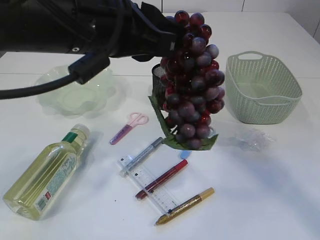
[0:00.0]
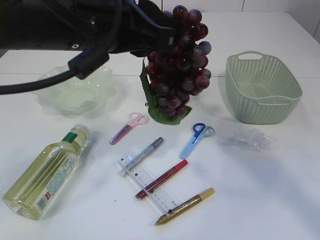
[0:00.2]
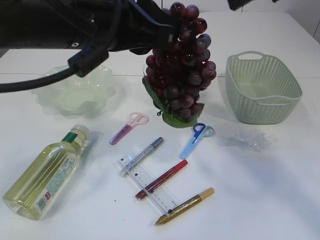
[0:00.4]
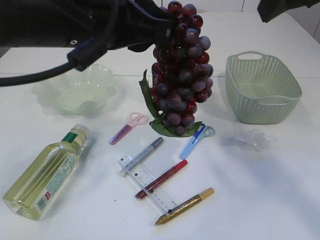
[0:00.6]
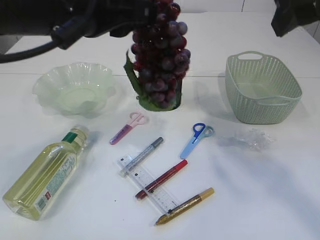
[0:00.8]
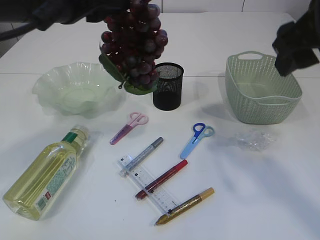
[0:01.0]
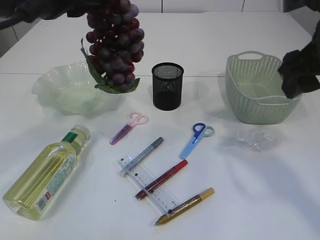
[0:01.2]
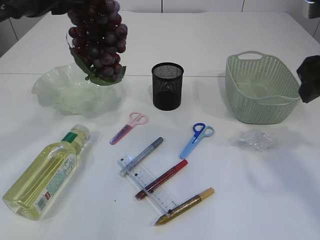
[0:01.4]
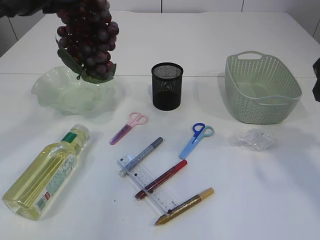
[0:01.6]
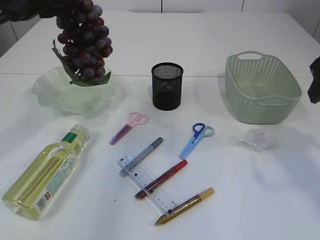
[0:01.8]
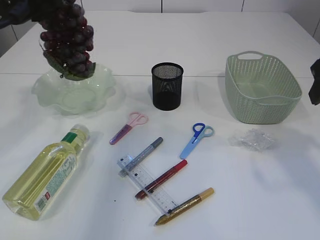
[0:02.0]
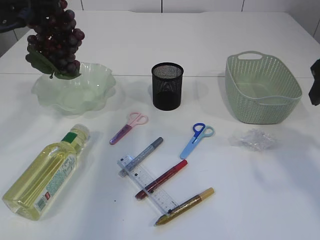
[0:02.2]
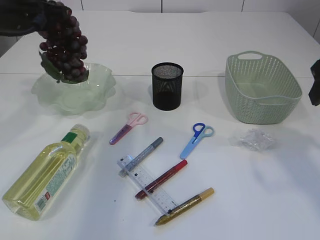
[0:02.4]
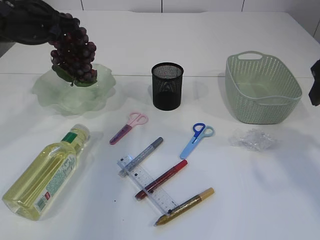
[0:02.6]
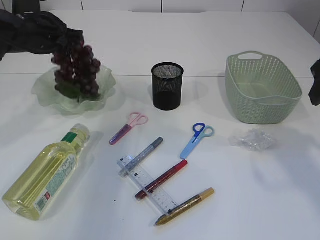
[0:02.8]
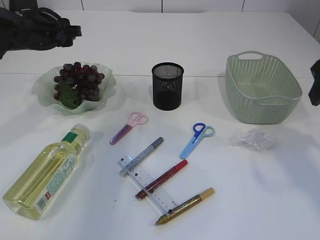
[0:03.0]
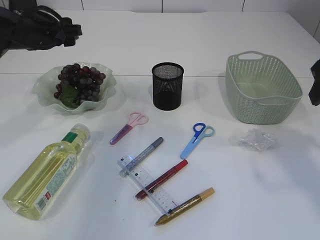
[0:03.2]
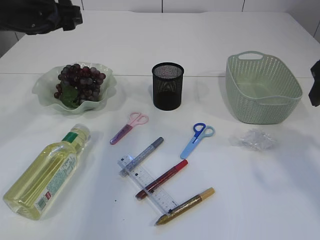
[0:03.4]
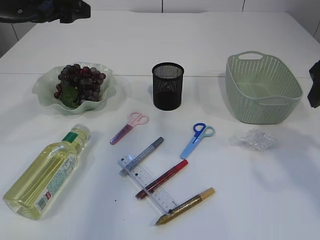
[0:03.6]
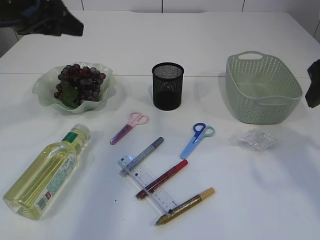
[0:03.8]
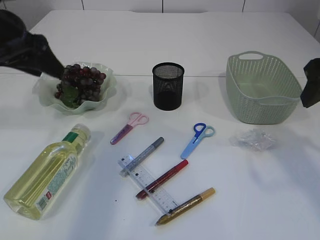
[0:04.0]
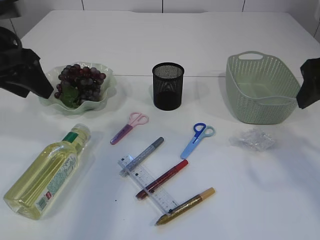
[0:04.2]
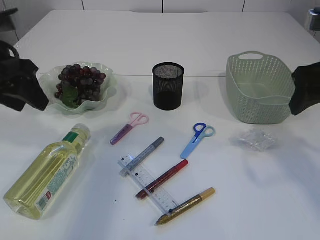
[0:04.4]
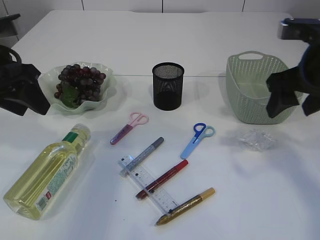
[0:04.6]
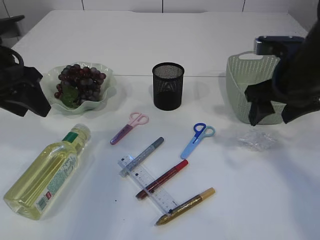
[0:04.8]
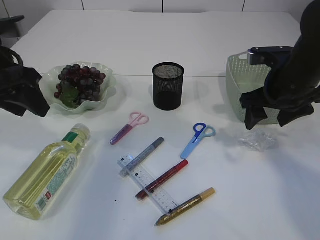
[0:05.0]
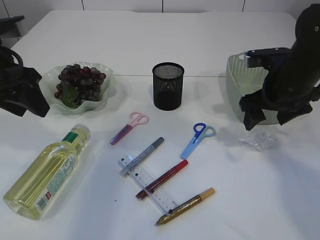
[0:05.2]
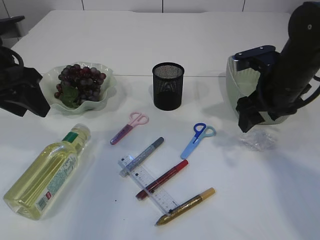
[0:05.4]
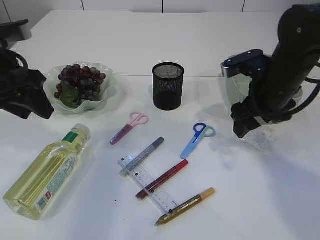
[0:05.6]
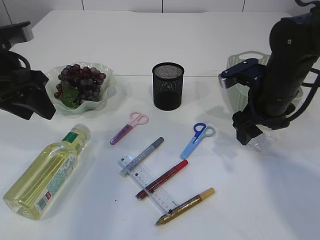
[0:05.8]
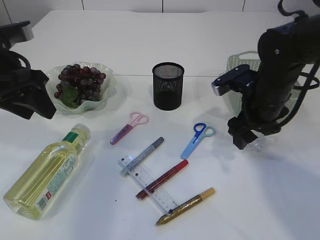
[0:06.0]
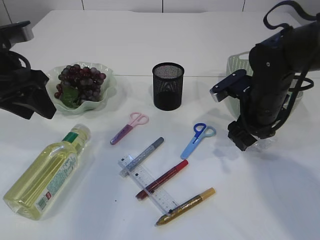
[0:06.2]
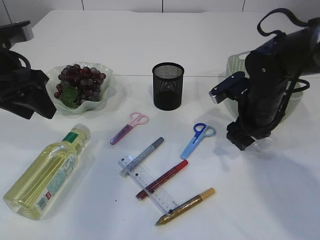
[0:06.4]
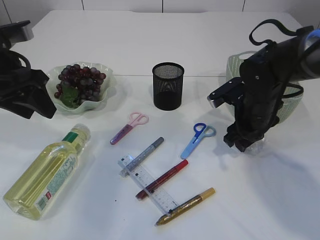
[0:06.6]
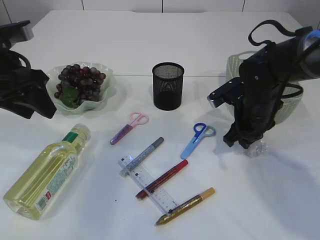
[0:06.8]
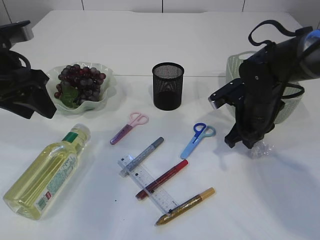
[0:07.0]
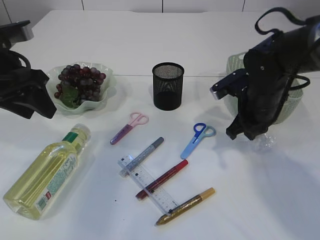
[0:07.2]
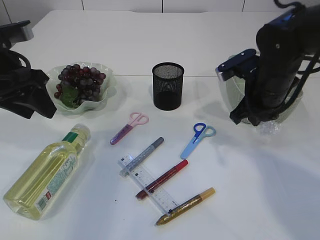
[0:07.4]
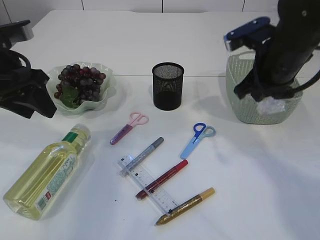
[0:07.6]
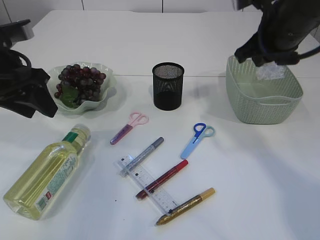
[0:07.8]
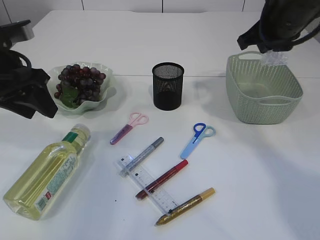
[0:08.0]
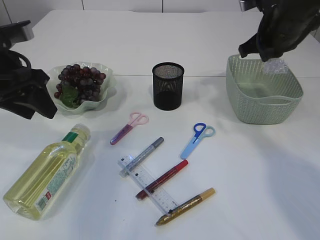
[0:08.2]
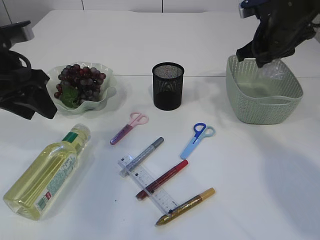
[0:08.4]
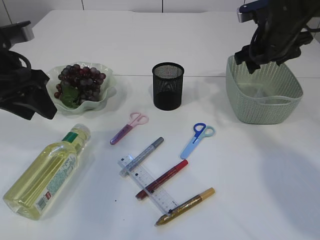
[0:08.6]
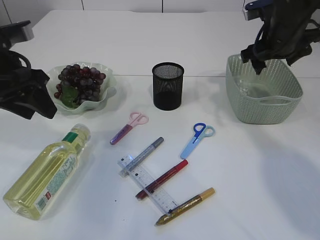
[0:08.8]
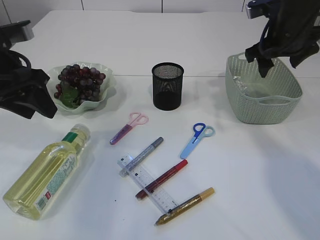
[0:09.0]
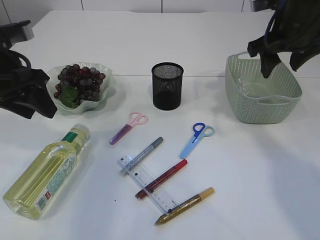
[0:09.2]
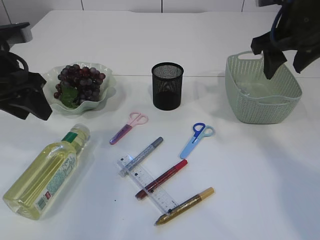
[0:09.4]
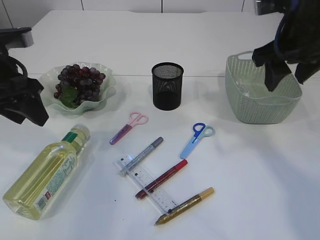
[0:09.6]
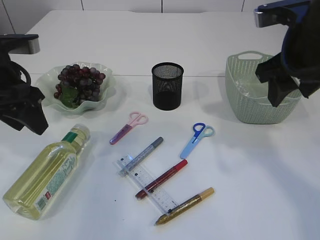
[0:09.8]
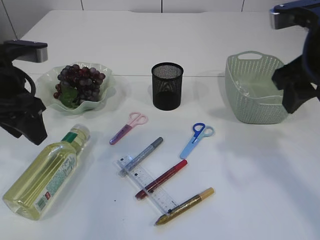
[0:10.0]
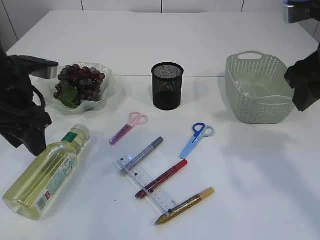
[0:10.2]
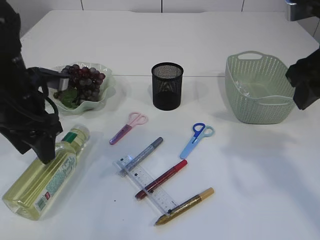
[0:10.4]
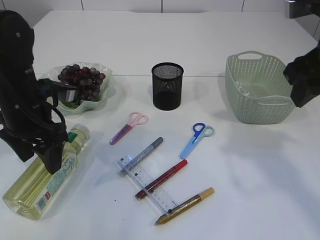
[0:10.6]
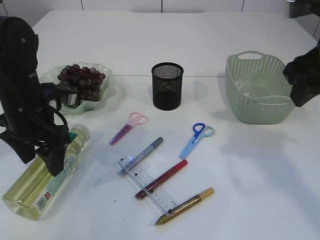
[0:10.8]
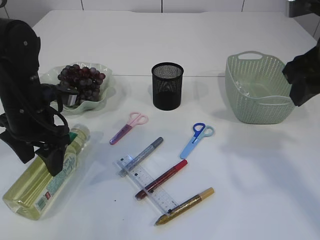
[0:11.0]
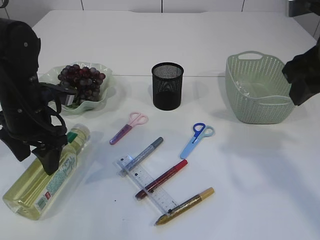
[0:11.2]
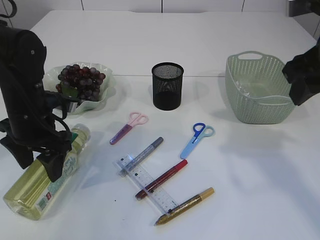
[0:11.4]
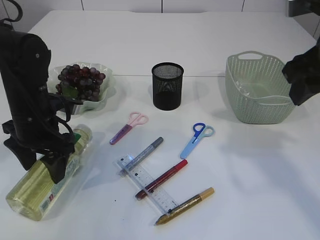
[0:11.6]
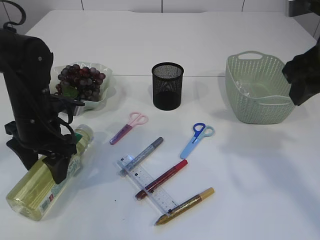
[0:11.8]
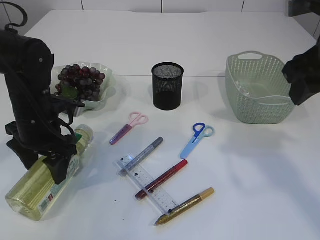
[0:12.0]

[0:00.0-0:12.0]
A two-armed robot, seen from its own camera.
Step, 0:00.8 to 0:02.8: Place the grapes in the plate.
Step, 0:03.0 to 0:07.4: Pick up the plastic.
Step, 0:07.6 to 0:09.8: Place the plastic in the basket.
0:00.0 to 0:01.6: The left gripper shifts about 15 cm to the left and forward. Meanwhile the right gripper goes some 20 cm to the right and downward.
0:01.6 to 0:03.0: The left gripper is displaced forward and downward by some 15 cm, and opens.
0:03.0 to 0:04.4: The left gripper heads backward, covering roughly 10 cm.
0:04.4 to 0:06.0: The right gripper heads downward, forward and to the left, covering about 15 cm.
0:06.0 to 0:07.6: The right gripper moves upward, roughly 10 cm, and closes up.
0:07.6 to 0:09.0: The right gripper moves forward, roughly 5 cm, and opens its fingers.
0:09.0 to 0:10.4: The left gripper is displaced downward by roughly 5 cm; the right gripper travels backward by about 15 cm.
0:10.4 to 0:12.0: The left gripper moves downward, roughly 5 cm.

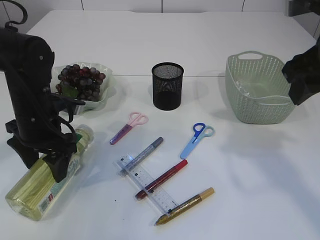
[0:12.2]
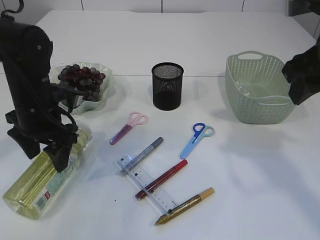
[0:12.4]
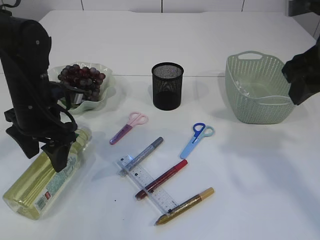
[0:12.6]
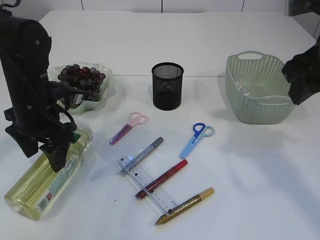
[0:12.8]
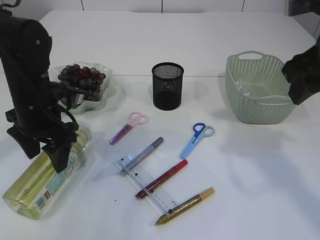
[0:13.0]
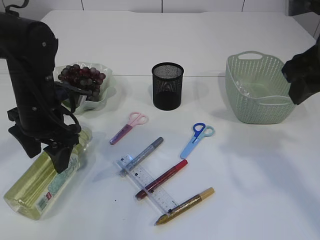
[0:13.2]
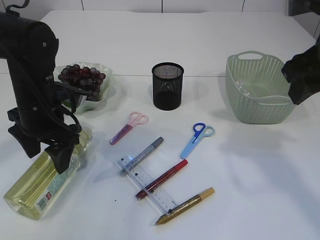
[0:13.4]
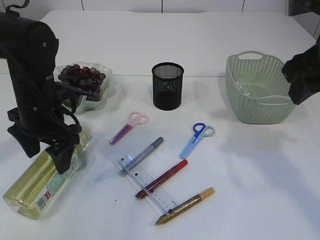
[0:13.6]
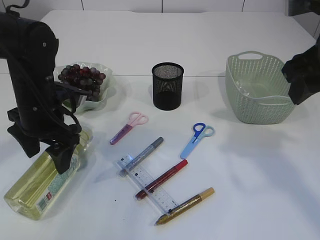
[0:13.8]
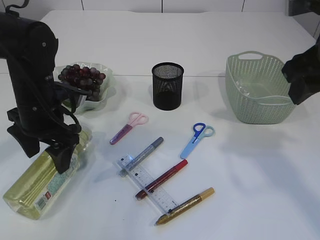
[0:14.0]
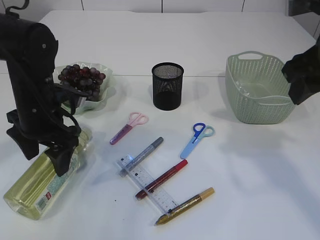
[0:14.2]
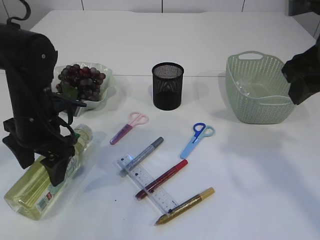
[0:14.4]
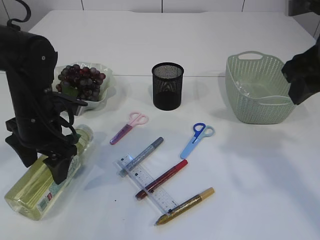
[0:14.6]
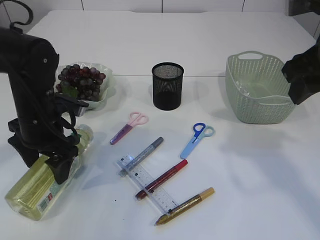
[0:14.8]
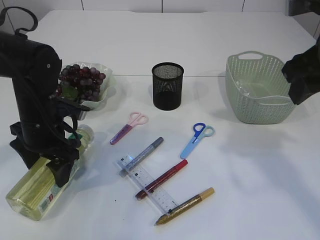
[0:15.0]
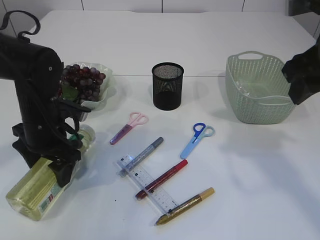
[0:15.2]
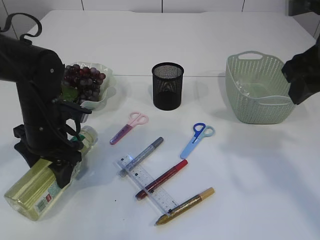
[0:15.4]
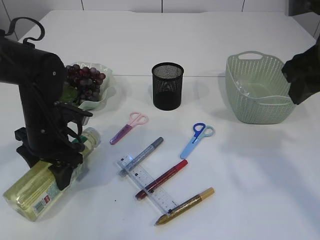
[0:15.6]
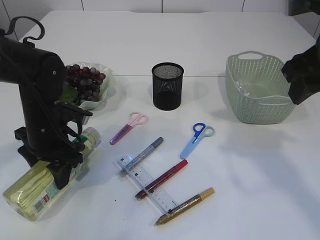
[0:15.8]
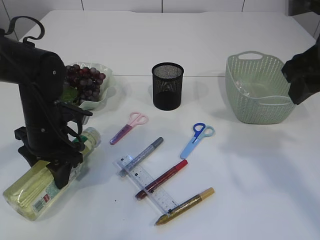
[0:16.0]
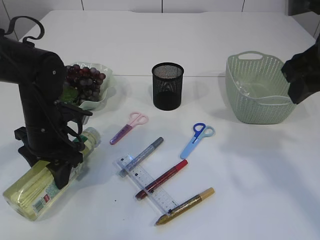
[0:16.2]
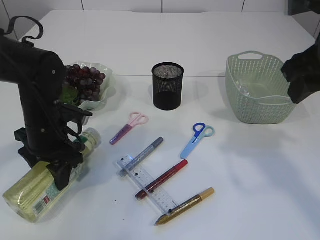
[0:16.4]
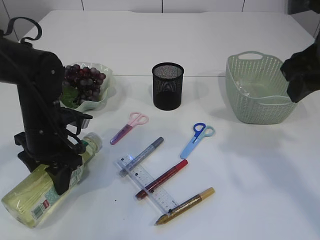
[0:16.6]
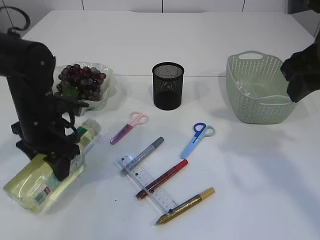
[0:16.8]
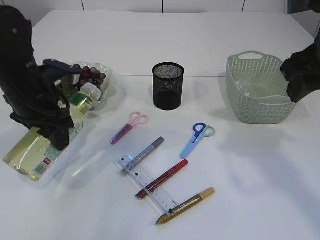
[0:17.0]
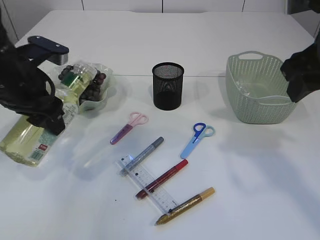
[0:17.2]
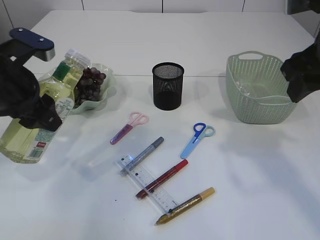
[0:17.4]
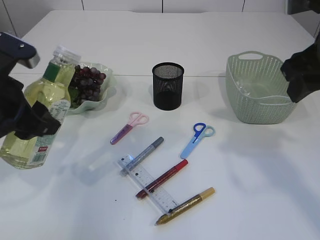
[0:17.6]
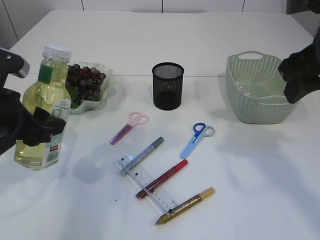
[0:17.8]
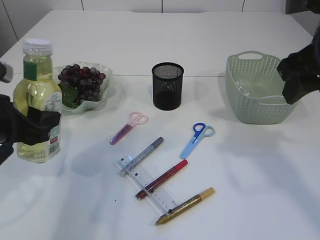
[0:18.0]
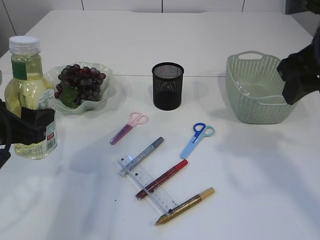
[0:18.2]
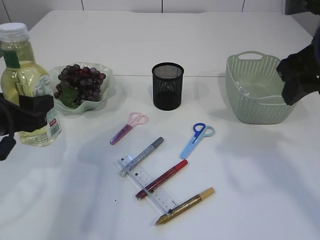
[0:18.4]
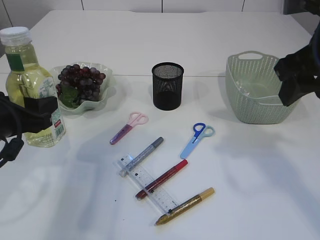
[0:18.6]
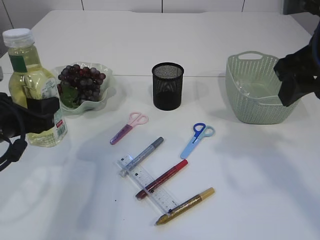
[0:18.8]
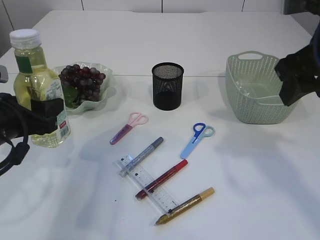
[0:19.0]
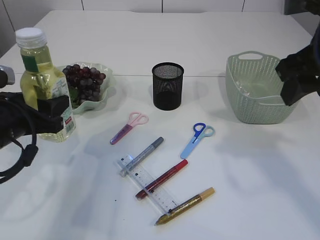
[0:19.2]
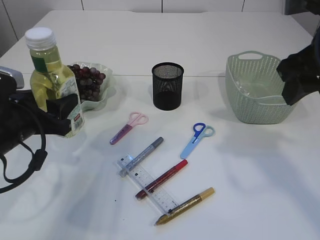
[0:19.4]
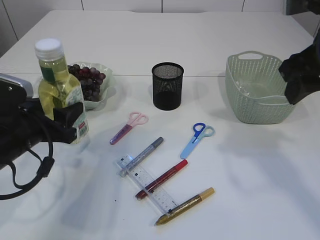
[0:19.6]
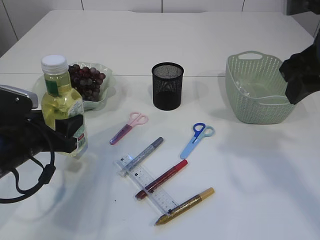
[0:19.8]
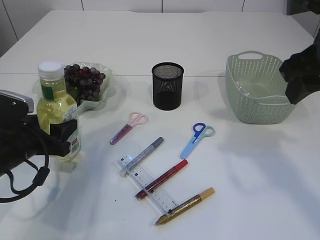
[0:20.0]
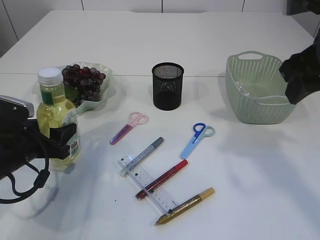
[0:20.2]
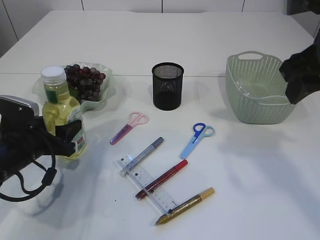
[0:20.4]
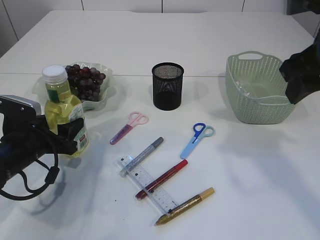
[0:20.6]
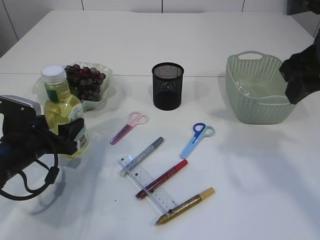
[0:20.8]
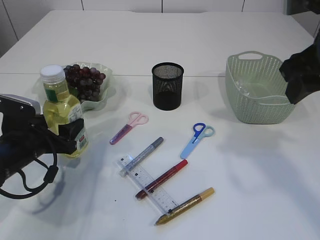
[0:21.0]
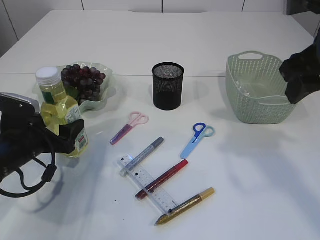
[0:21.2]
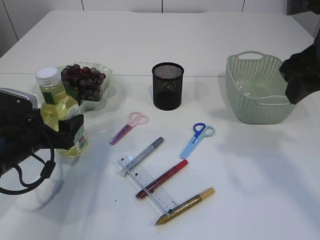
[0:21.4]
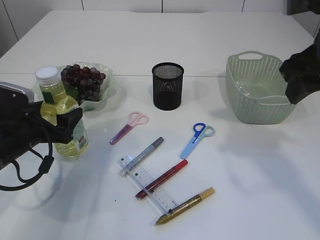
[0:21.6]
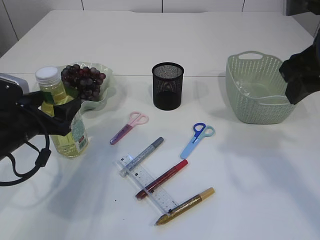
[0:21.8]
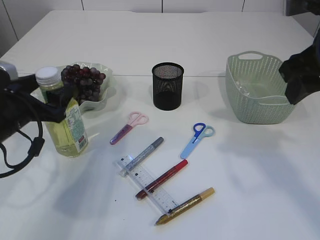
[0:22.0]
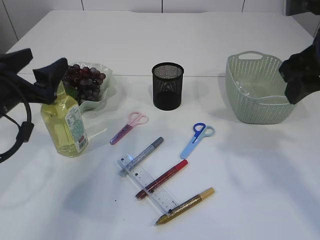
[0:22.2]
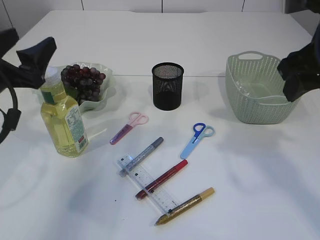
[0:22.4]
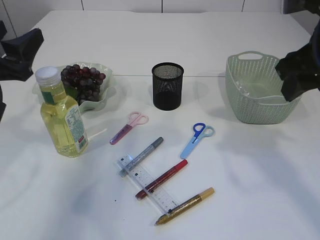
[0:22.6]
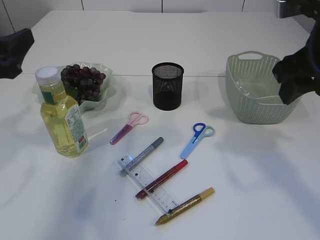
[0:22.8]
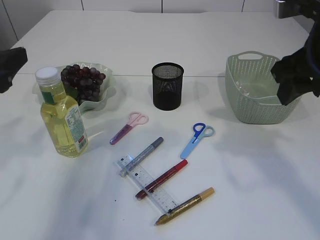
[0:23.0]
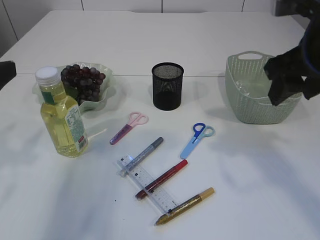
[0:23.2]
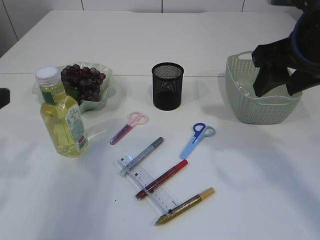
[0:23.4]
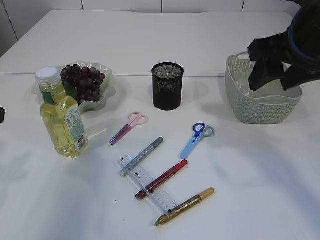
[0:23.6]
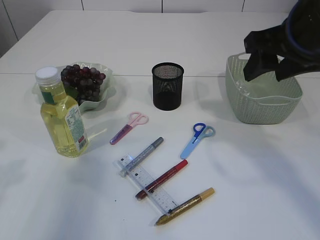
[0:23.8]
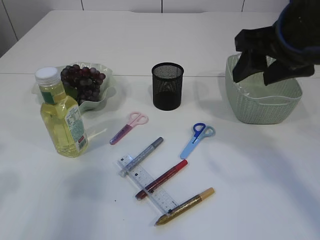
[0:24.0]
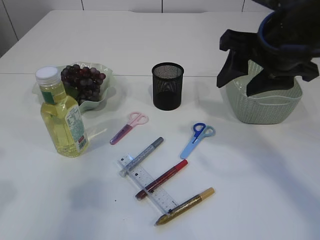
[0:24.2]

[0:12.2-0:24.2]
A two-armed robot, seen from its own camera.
Step, 0:12.2 to 0:17.4: Pick up the bottle with the left arm.
Step, 0:17.6 to 0:22.4: Place the bottle.
0:12.2 to 0:15.2: The grippers make only small movements.
0:15.2 to 0:16.6: The left gripper closes its fingers.
0:16.6 to 0:18.2: The left gripper goes approximately 10 cm backward and upward.
0:18.2 to 0:19.8: The left gripper goes about 5 cm downward.
0:19.8 to 0:21.2: The left gripper opens its fingers.
0:21.2 to 0:22.6: The left gripper is displaced upward by some 15 cm.
0:22.6 to 0:24.2: The right gripper ends up some 5 cm from where it was. The left gripper goes some 10 cm backward.
